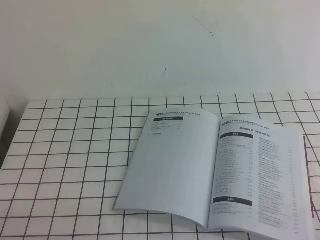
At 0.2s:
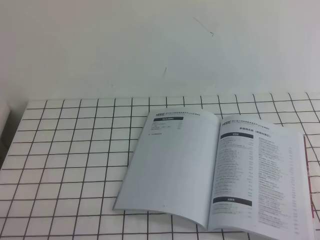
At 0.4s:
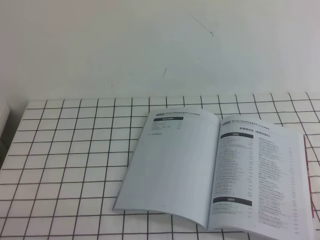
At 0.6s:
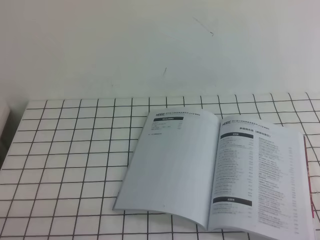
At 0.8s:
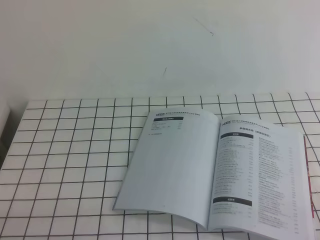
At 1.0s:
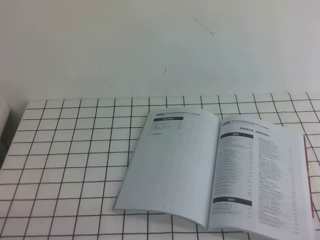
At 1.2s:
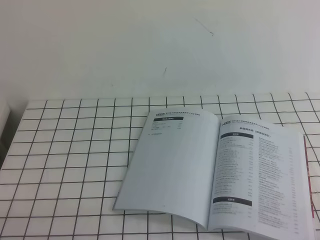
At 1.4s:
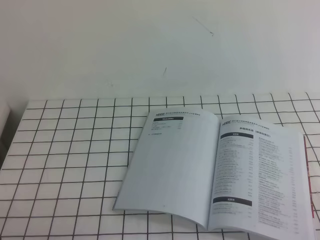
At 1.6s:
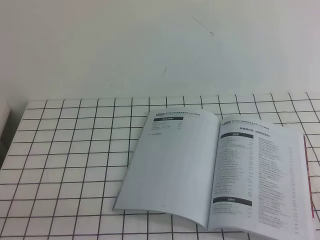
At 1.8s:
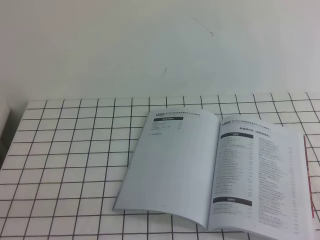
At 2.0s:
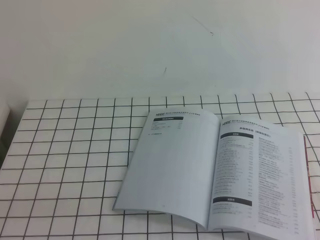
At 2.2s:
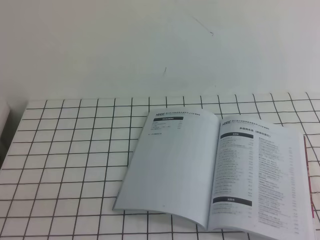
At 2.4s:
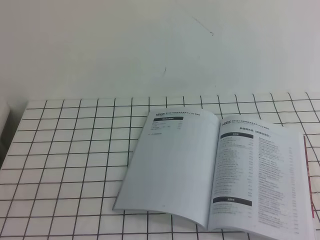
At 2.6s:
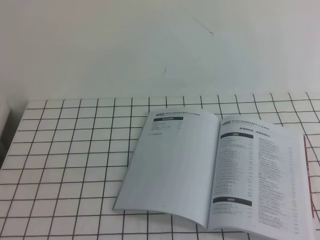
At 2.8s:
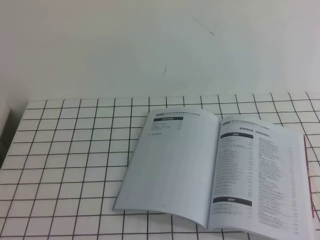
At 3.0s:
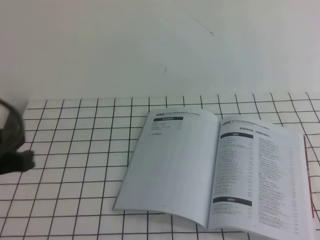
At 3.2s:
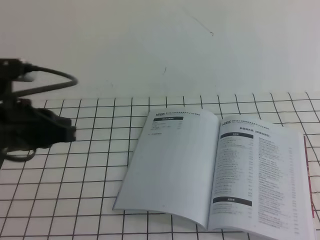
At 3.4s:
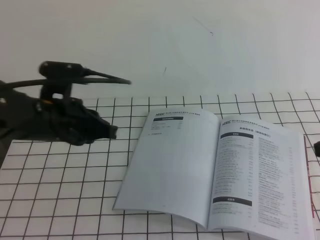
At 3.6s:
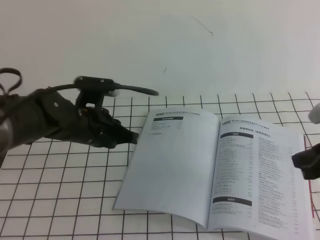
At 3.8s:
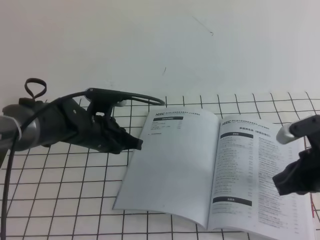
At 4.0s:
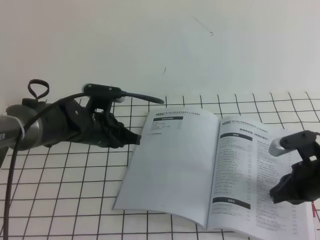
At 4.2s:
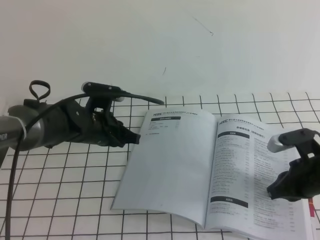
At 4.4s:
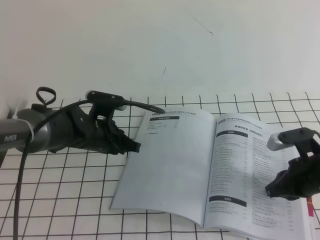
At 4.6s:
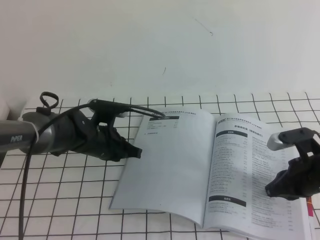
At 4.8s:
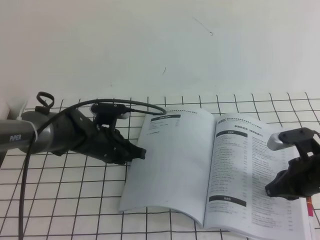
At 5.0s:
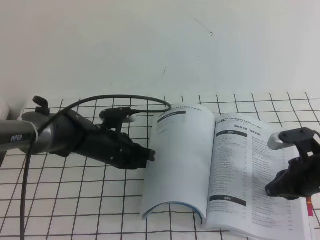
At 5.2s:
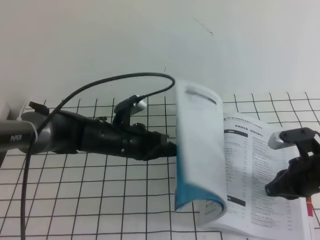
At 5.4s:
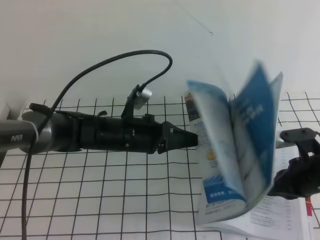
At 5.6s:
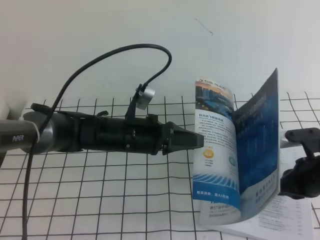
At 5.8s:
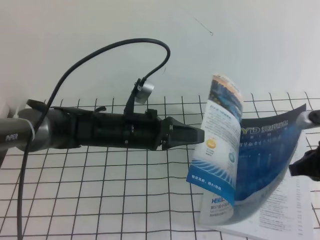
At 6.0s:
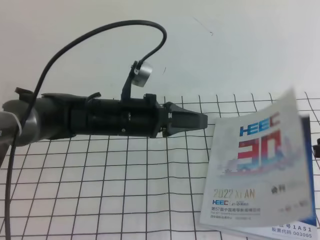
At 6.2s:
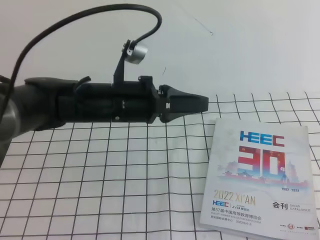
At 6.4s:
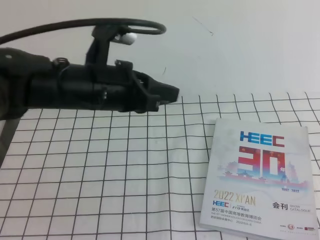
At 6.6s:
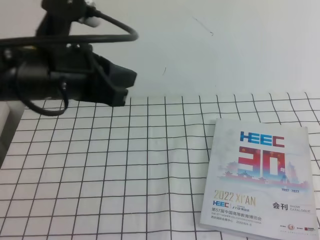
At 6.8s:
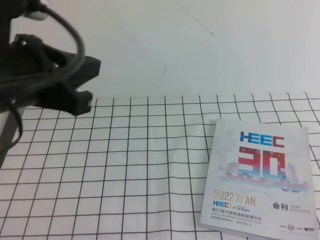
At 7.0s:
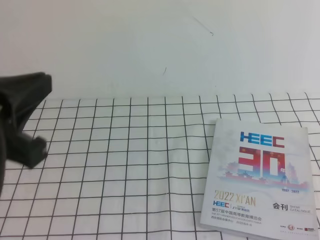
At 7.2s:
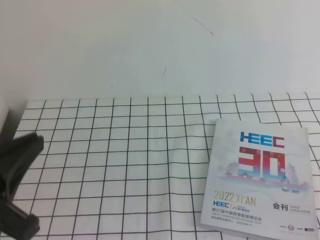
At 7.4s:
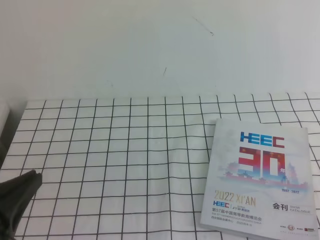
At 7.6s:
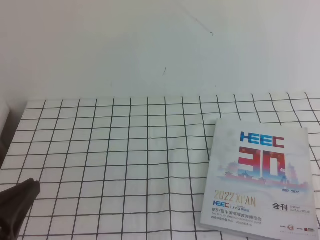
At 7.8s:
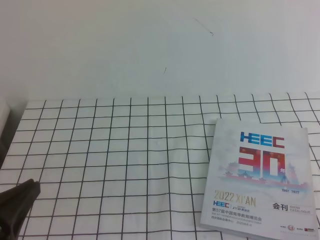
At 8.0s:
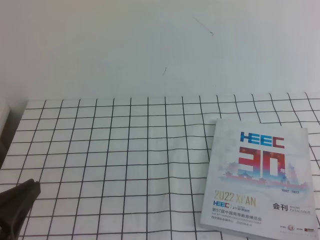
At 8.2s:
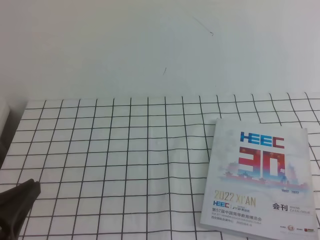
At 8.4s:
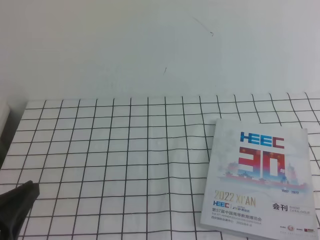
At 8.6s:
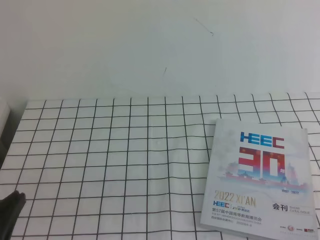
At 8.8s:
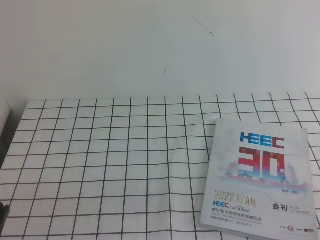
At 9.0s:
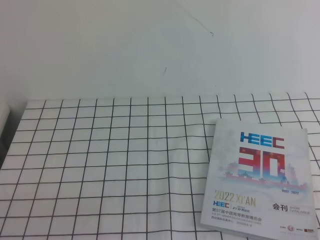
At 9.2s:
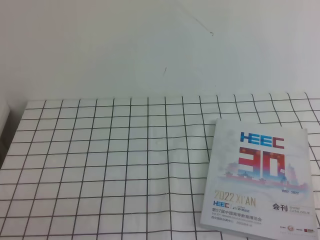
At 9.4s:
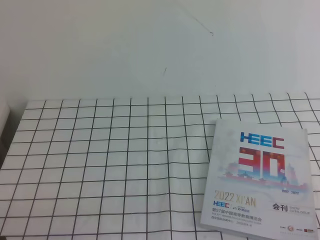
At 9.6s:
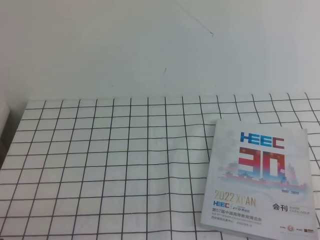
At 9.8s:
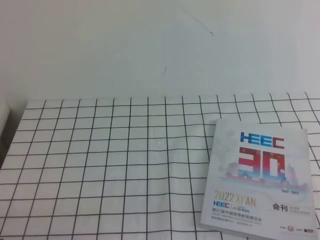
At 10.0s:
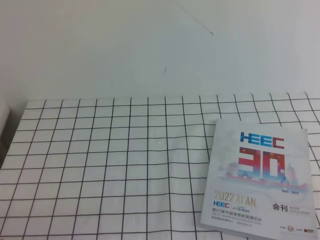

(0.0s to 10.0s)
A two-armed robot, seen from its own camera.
Task of the whole recording: on the white tablecloth, hold the book with one hand and close it with the other.
2.8s - 4.2s: The left gripper is displaced forward, downward and to the right by some 35 cm, while the right gripper is displaced downward and forward by approximately 30 cm.
4.2s - 5.8s: The left gripper goes roughly 5 cm to the right, while the right gripper moves about 5 cm.
5.8s - 7.2s: The left gripper shifts some 30 cm backward, upward and to the left, while the right gripper is displaced backward and upward by some 30 cm.
7.2s - 8.6s: The left gripper goes about 10 cm downward.
8.6s - 10.0s: The left gripper goes approximately 5 cm downward.
